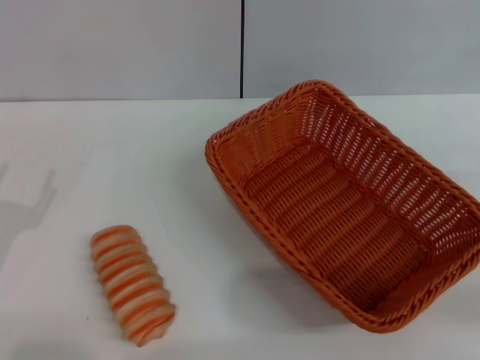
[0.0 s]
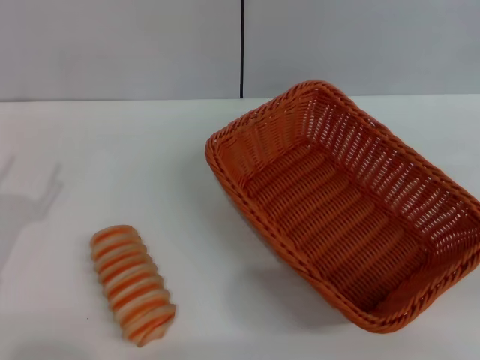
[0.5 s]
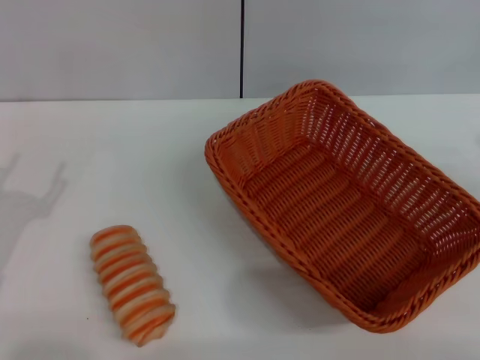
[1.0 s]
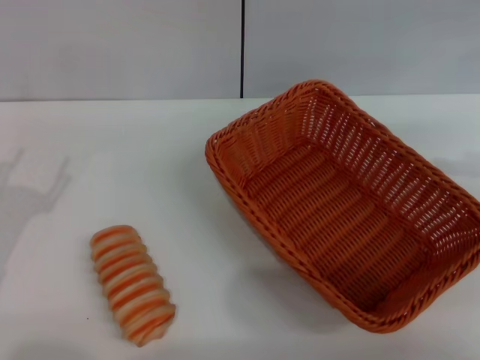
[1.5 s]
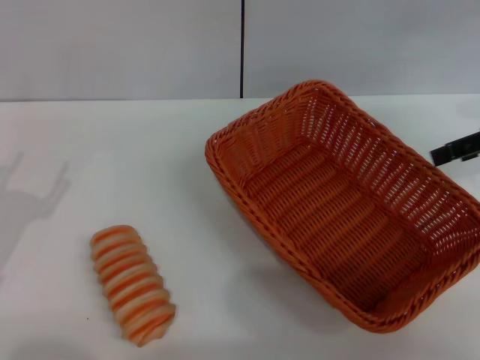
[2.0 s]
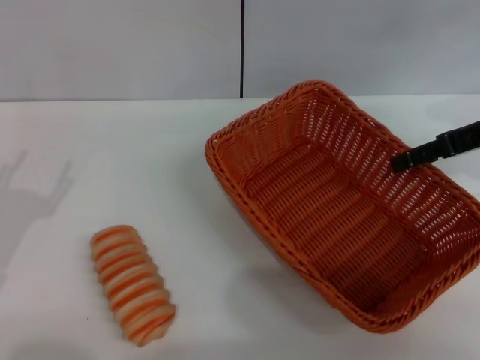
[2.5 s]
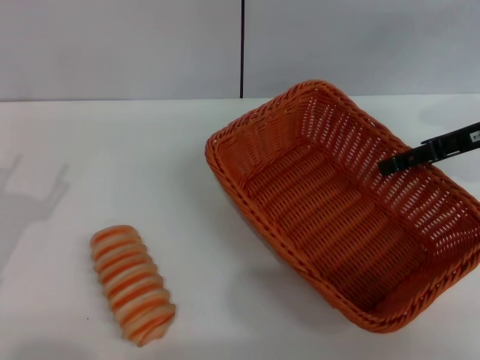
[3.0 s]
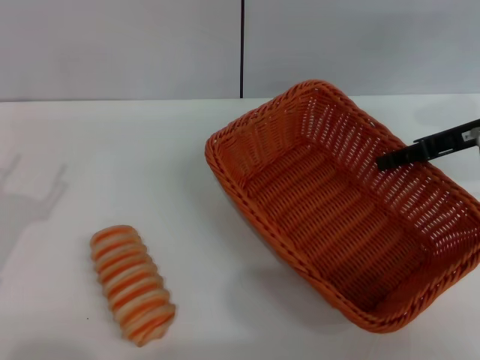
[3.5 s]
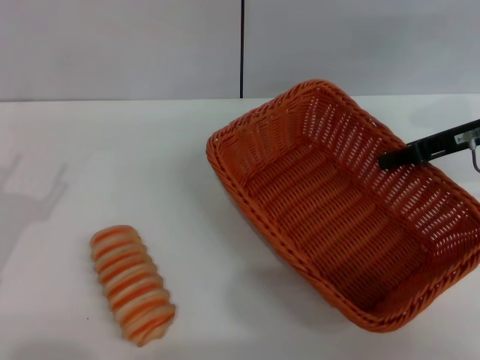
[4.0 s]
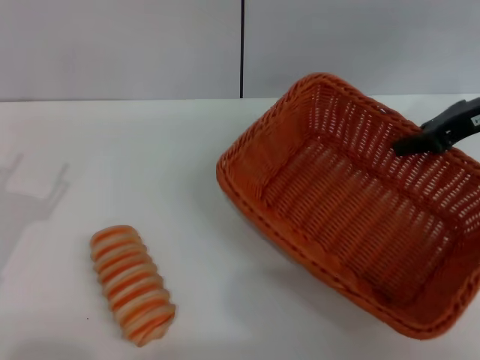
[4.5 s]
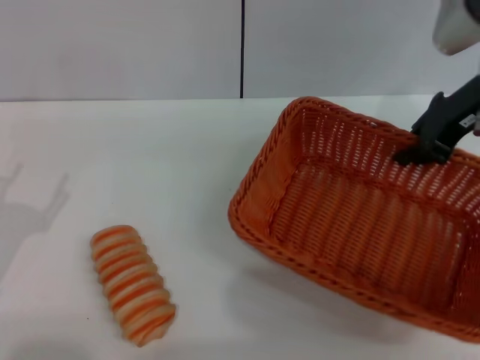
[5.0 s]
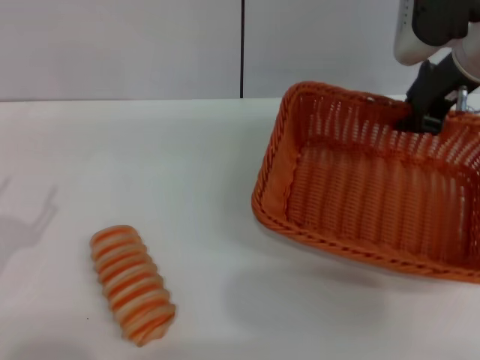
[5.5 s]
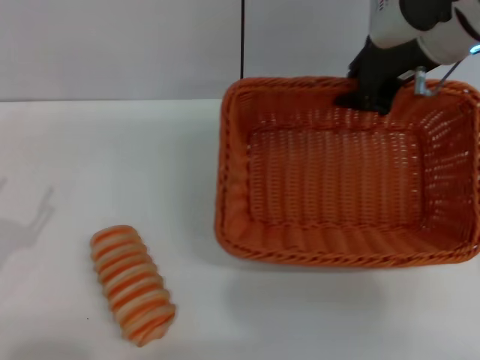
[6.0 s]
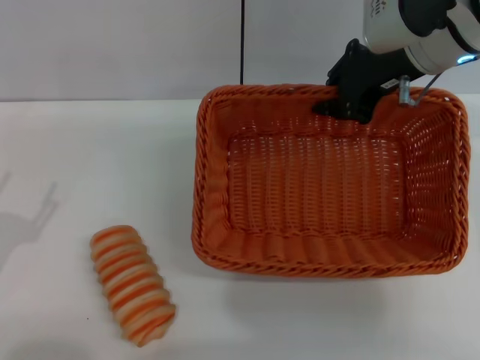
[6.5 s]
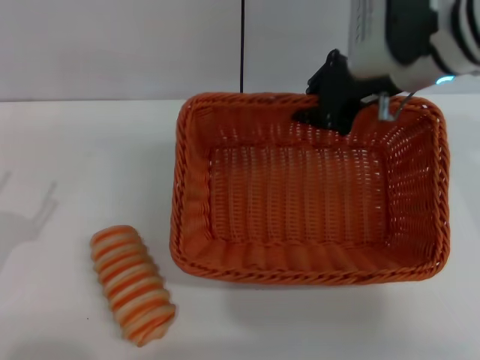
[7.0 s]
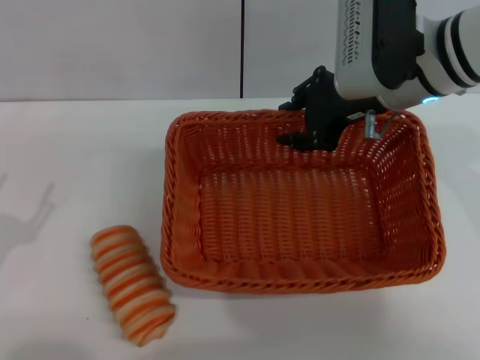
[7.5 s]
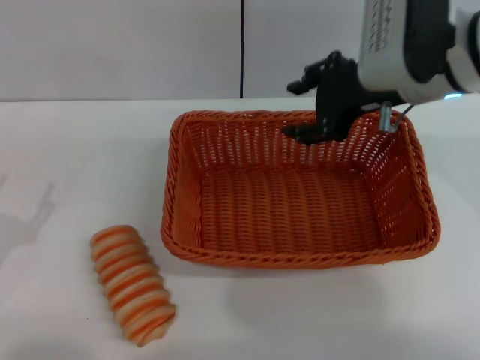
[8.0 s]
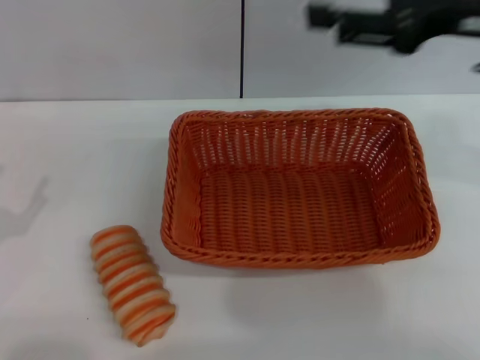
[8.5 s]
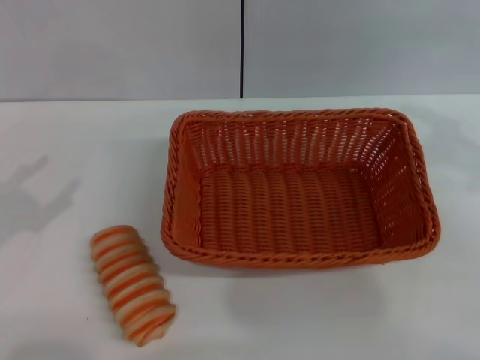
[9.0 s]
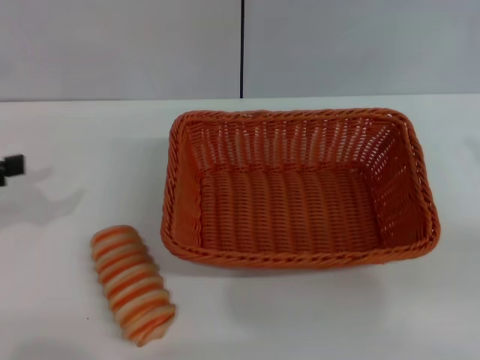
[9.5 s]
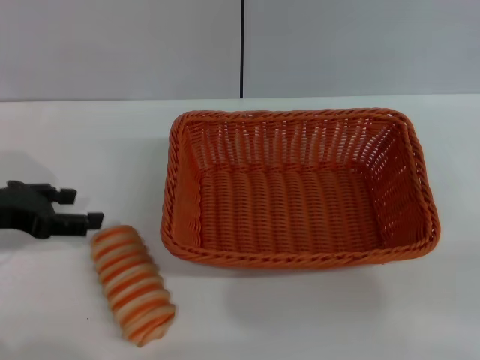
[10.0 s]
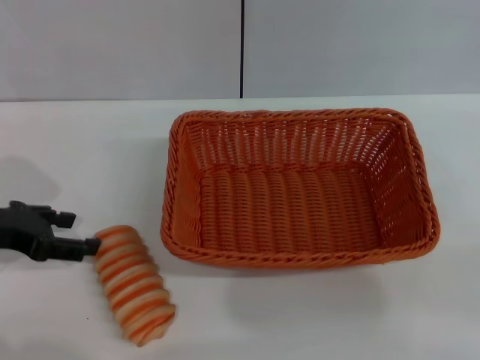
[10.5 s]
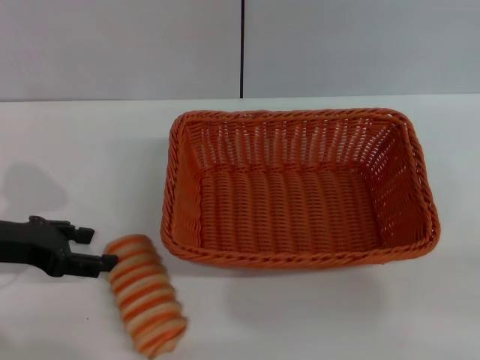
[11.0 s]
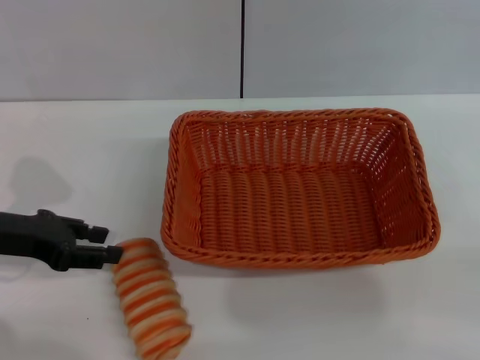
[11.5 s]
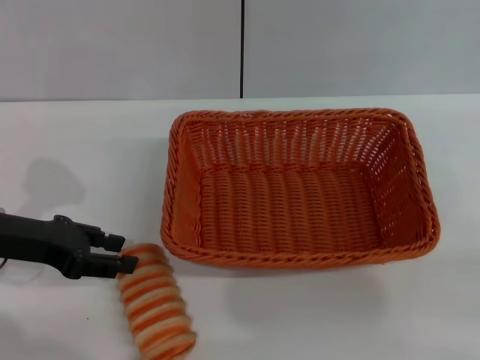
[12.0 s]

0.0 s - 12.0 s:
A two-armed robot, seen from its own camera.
Step, 0.0 s - 4.0 s: Pick up the light basket with the right gripper.
Step, 4.5 s - 8.0 s: Place the light basket in the center of view with the right gripper.
0.0 s - 2.0 s: The right gripper moves forward and upward, some 15 cm.
2.0 s - 4.0 s: The right gripper heads to the left, covering some 5 cm, and closes up.
4.0 s - 6.0 s: The right gripper is displaced to the left and upward by some 15 cm.
6.0 s - 8.0 s: The right gripper opens its fingers.
8.0 s - 10.0 s: The left gripper moves forward and upward, roughly 15 cm. The right gripper goes approximately 30 cm to the right and backward.
10.0 s - 12.0 s: The grippers move only a little.

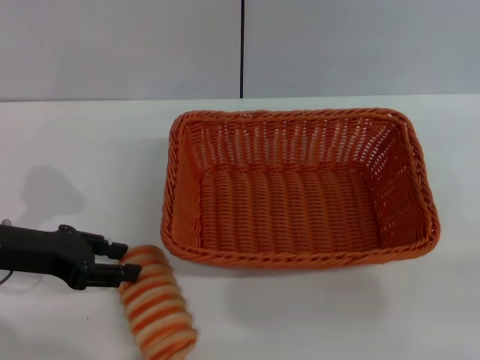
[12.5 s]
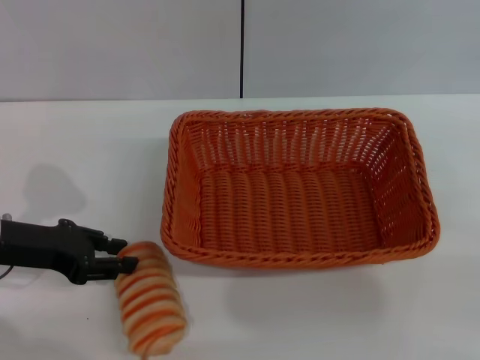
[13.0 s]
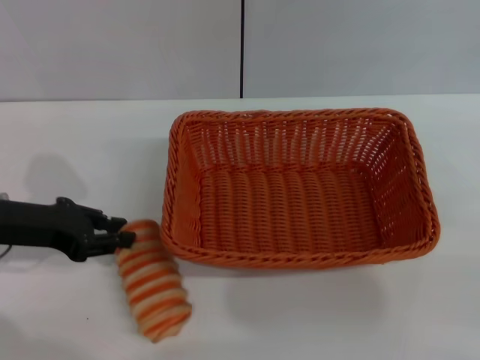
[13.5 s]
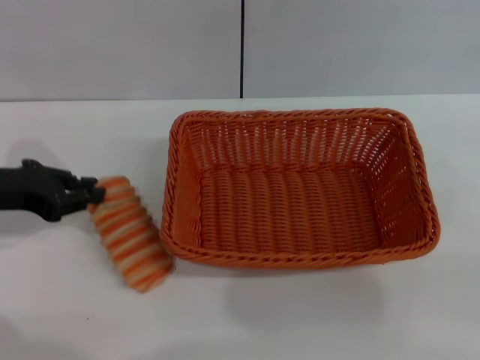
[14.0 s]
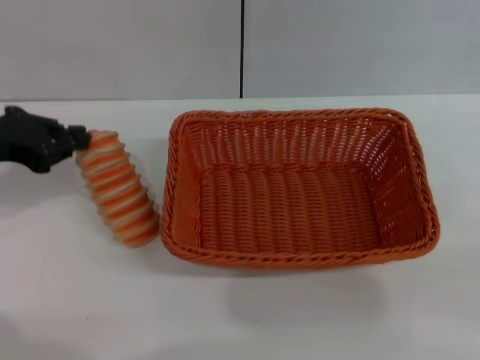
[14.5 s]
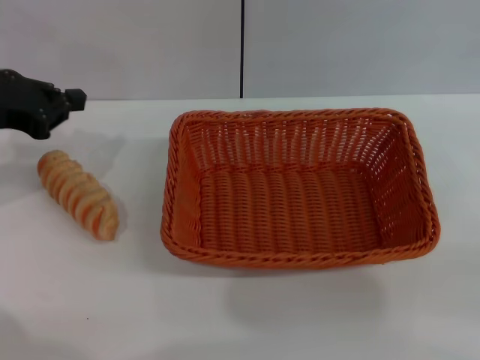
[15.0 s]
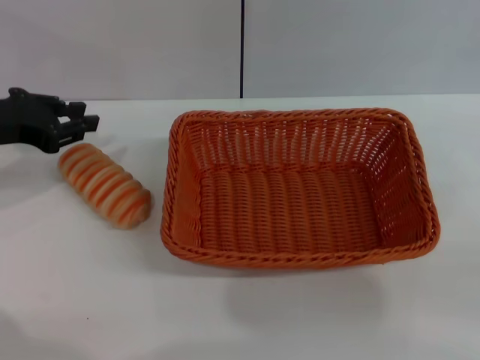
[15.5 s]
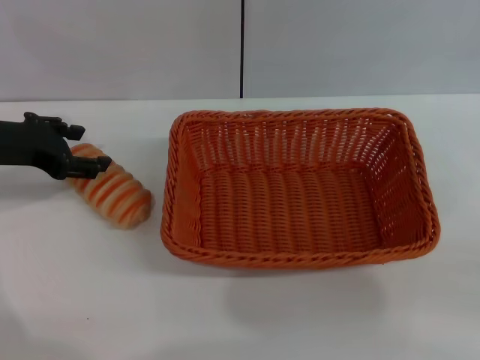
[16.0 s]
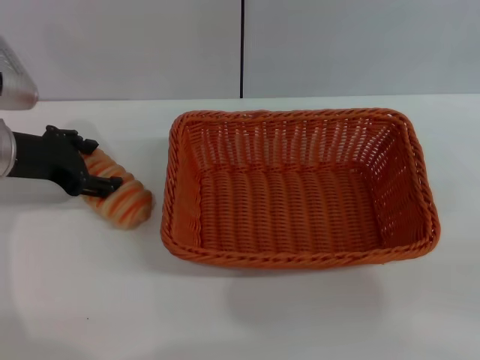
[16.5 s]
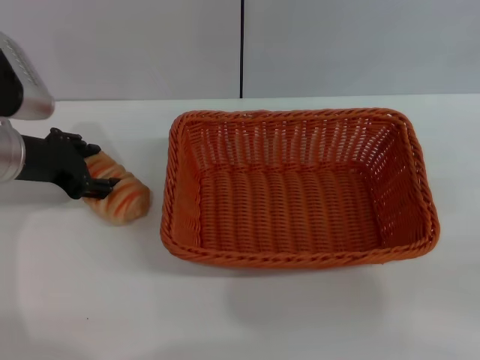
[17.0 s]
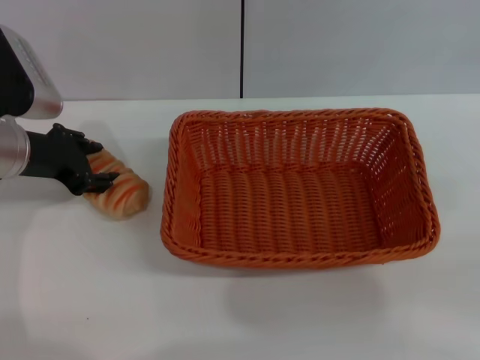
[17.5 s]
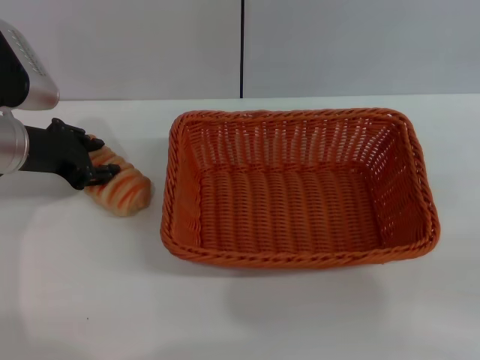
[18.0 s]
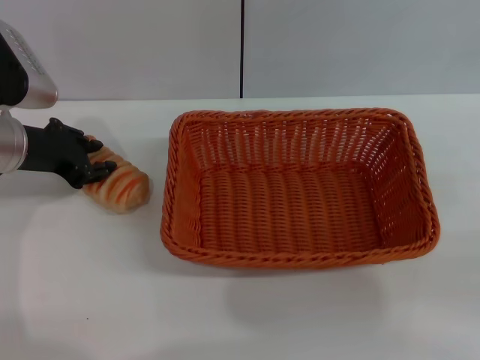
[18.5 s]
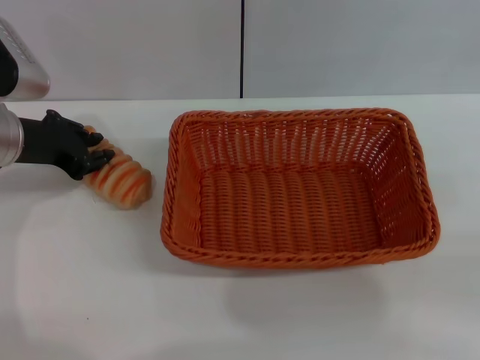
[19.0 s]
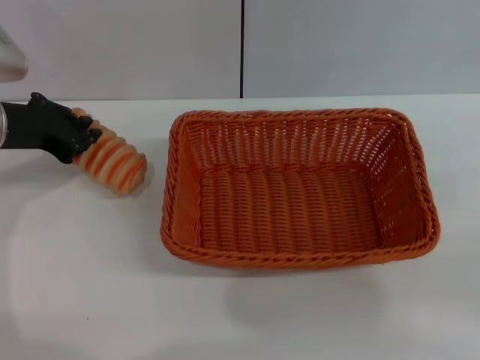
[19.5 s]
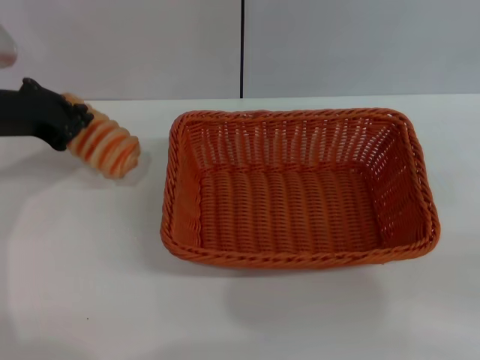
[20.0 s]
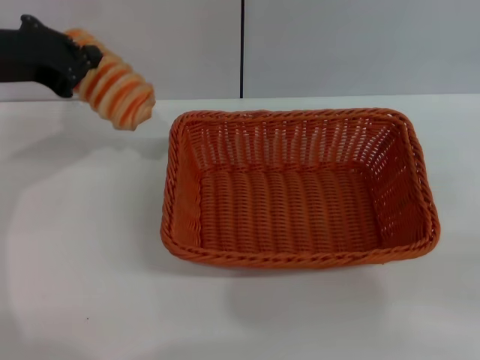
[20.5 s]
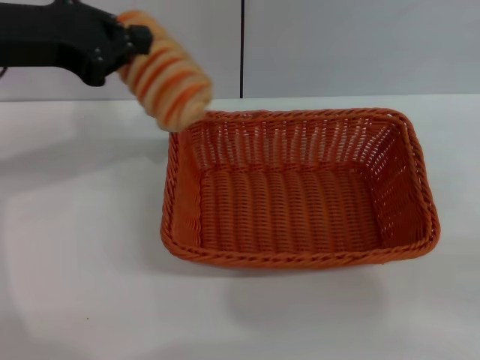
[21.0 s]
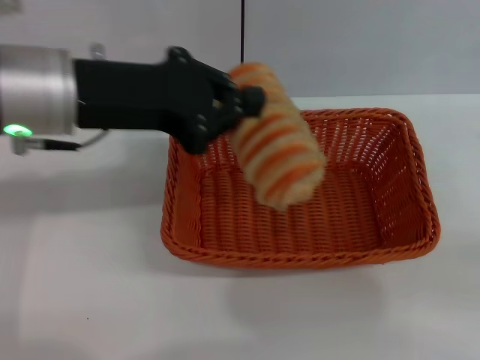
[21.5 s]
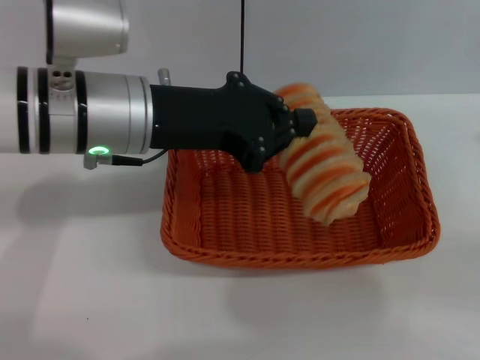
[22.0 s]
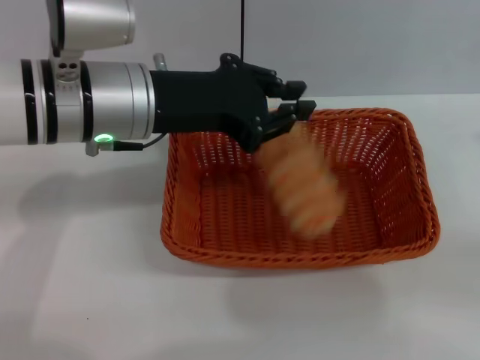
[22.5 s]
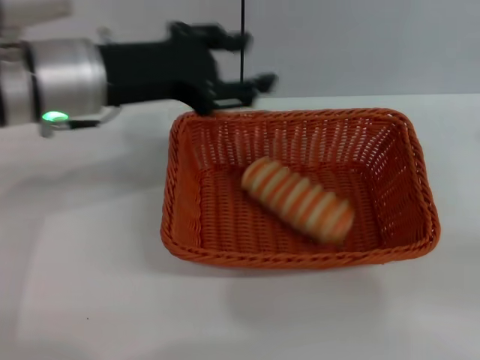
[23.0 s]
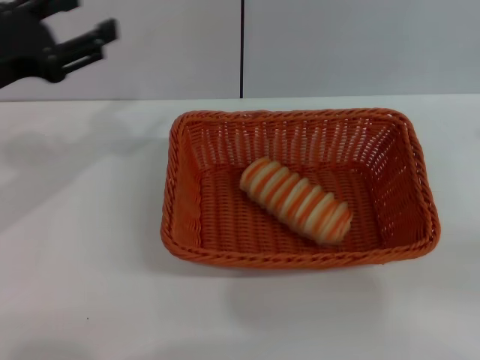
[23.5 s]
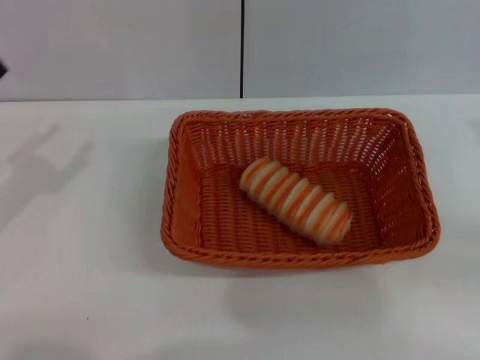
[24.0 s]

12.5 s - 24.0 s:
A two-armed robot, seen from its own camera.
Step, 12.5 s - 20.0 s: Pick up the long bread with the left gripper.
Step, 20.5 s - 22.5 s: Place the long bread into the light basket with the left gripper.
12.5 s - 14.5 s: The left gripper is displaced upward by roughly 5 cm, and closes its fingers.
14.5 s - 16.5 s: The left gripper changes place by about 5 cm, and opens its fingers.
16.5 s - 18.5 s: The left gripper closes its fingers.
18.5 s - 20.0 s: The left gripper closes up.
20.0 s - 22.0 s: The left gripper travels to the right by roughly 15 cm.
22.0 s - 24.0 s: The left gripper goes some 20 cm to the left, and opens up.

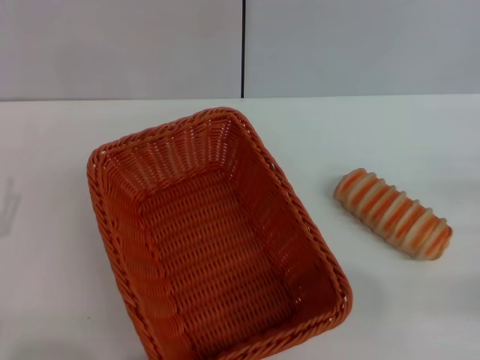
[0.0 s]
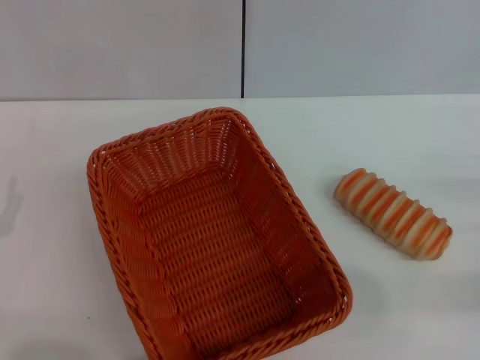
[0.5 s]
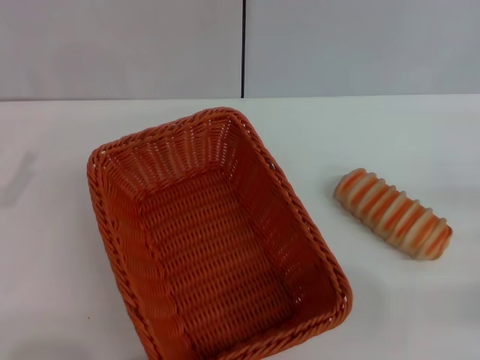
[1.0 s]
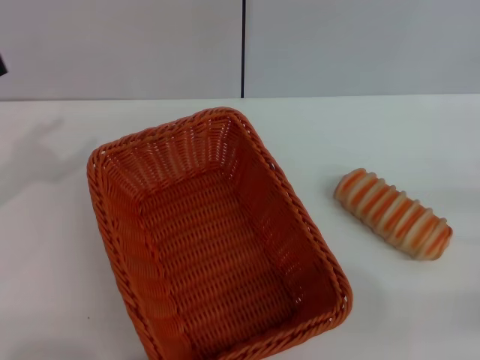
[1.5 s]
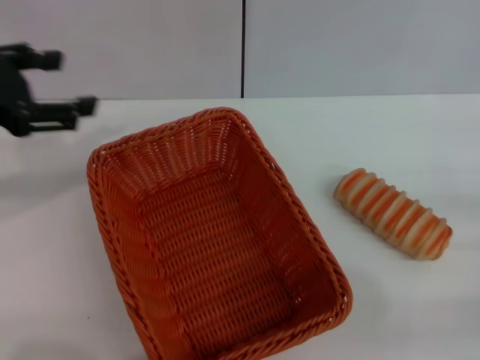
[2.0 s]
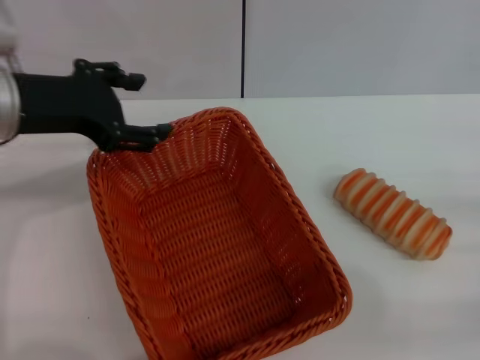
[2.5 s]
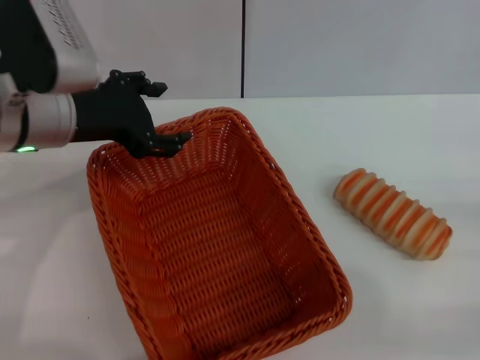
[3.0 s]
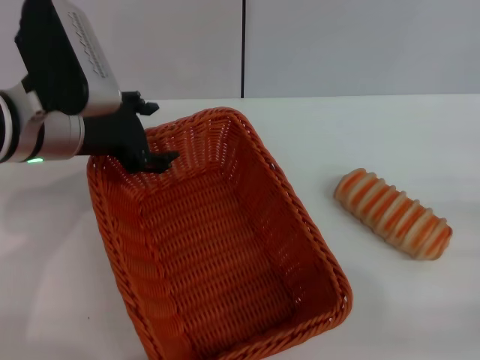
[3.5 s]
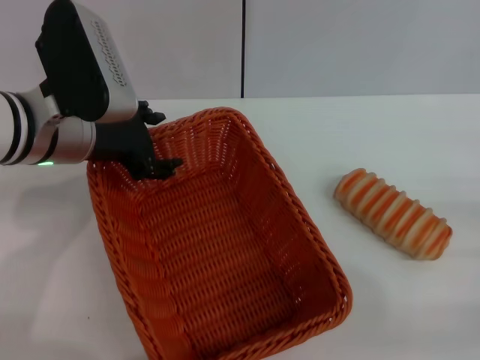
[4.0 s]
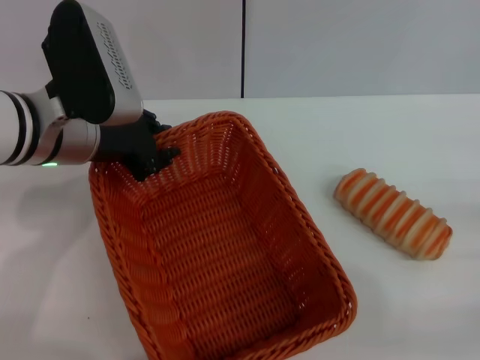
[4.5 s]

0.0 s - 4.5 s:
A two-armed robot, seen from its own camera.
0.0 s - 2.0 s: The left gripper moves upward and forward, approximately 25 cm.
2.0 s - 4.5 s: The left gripper travels to the right and downward by some 15 cm, and closes its fingers.
